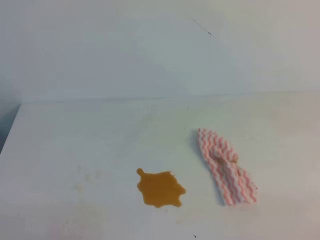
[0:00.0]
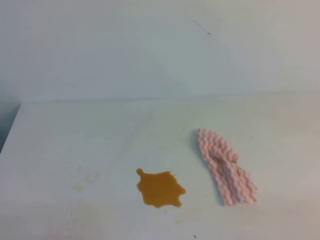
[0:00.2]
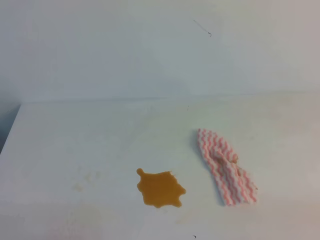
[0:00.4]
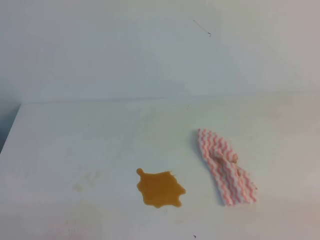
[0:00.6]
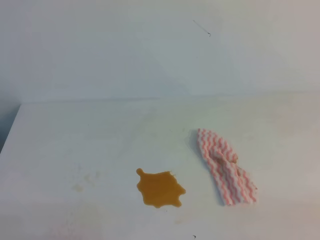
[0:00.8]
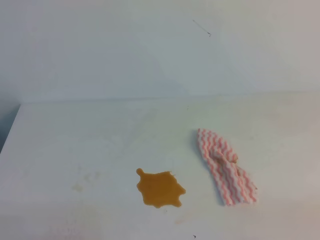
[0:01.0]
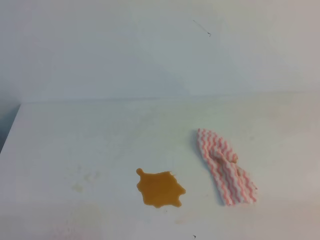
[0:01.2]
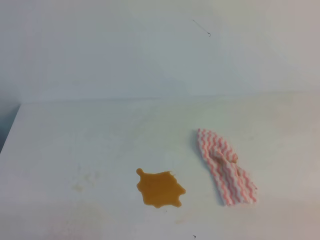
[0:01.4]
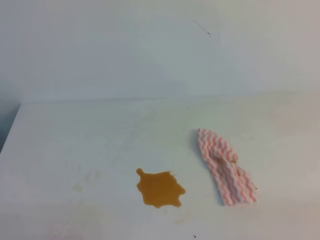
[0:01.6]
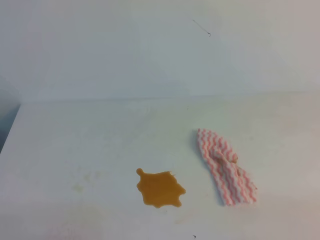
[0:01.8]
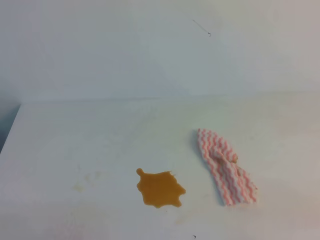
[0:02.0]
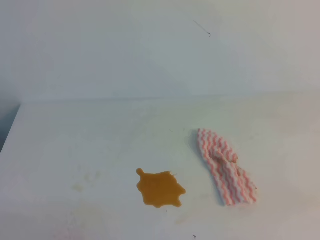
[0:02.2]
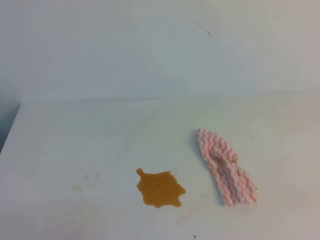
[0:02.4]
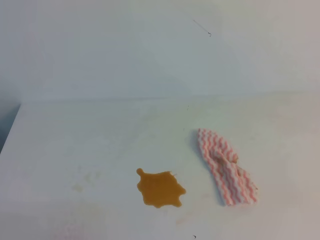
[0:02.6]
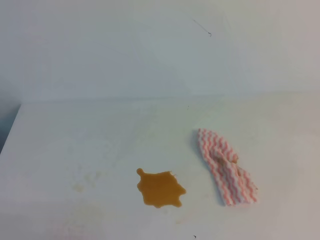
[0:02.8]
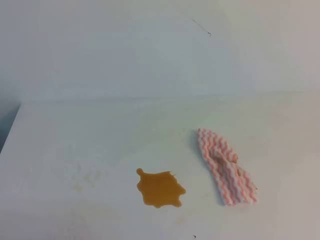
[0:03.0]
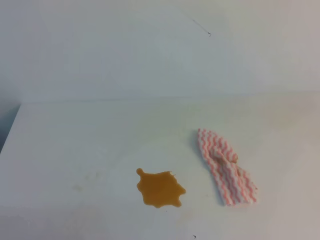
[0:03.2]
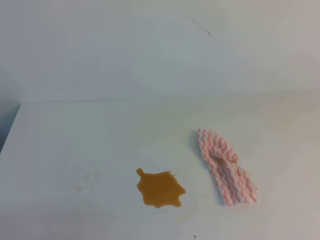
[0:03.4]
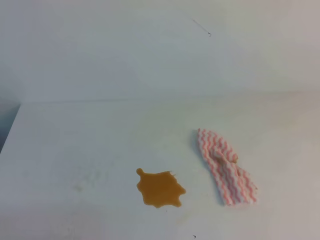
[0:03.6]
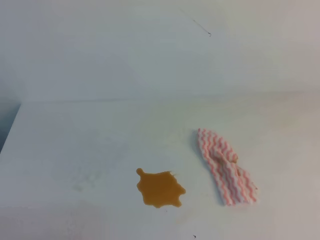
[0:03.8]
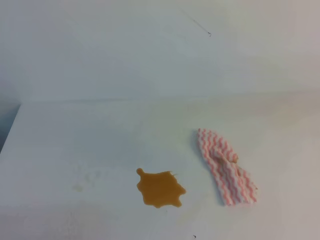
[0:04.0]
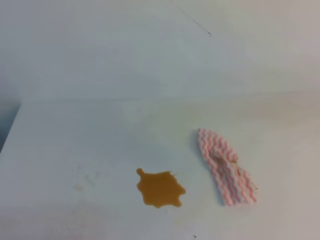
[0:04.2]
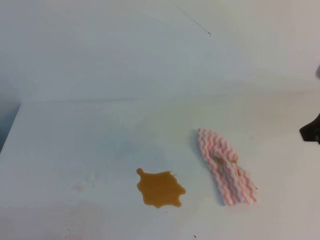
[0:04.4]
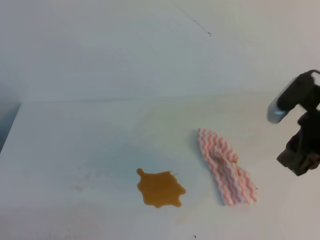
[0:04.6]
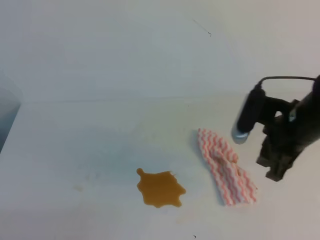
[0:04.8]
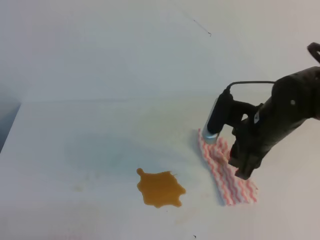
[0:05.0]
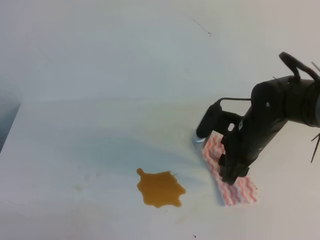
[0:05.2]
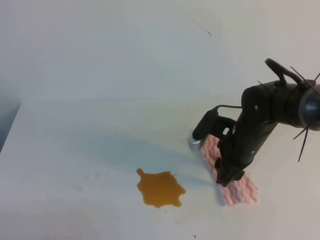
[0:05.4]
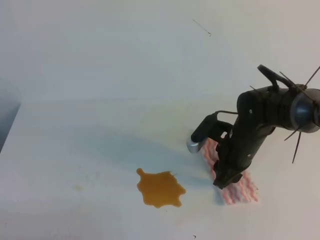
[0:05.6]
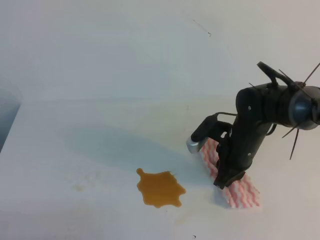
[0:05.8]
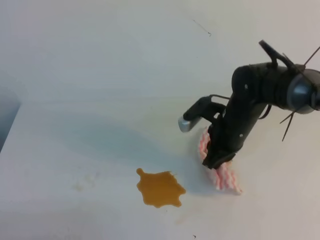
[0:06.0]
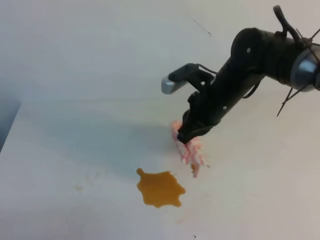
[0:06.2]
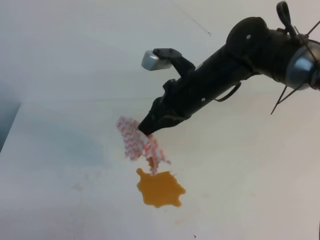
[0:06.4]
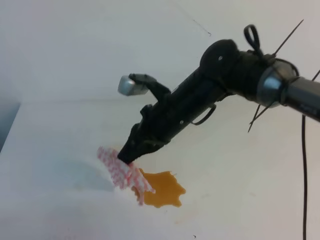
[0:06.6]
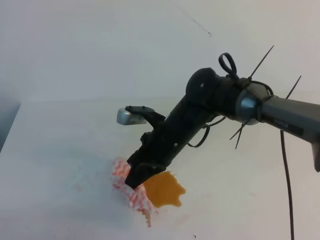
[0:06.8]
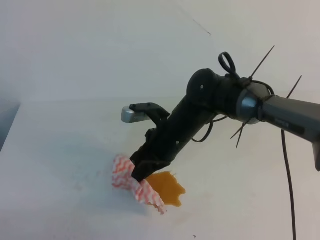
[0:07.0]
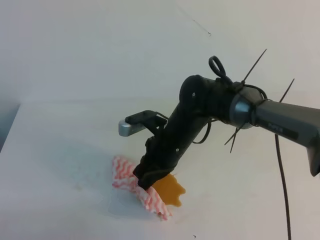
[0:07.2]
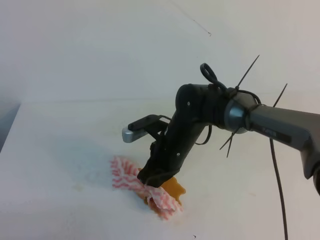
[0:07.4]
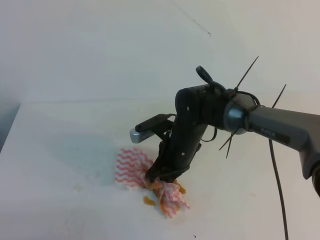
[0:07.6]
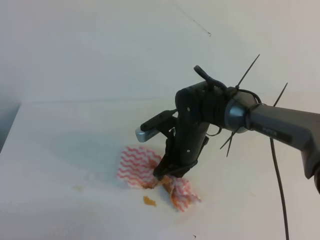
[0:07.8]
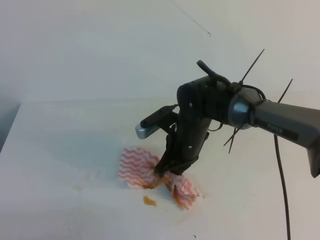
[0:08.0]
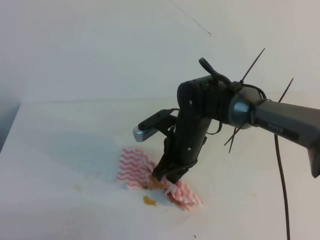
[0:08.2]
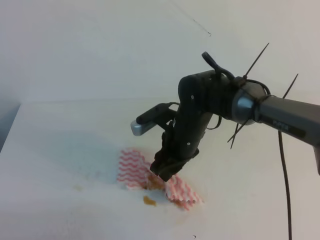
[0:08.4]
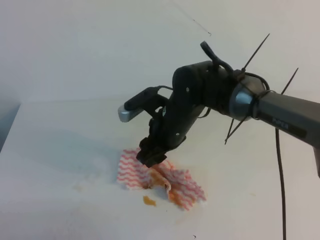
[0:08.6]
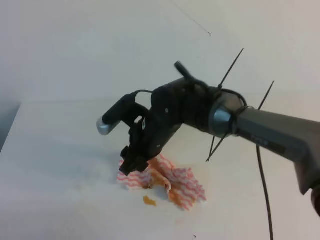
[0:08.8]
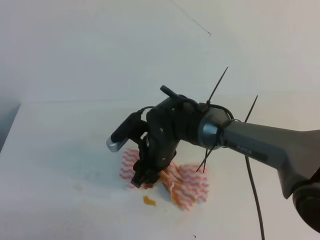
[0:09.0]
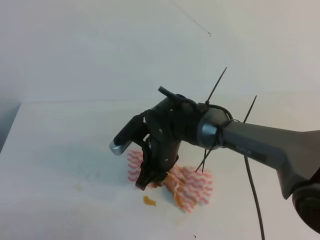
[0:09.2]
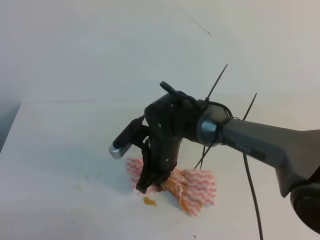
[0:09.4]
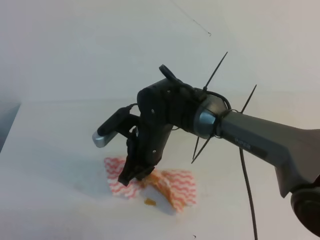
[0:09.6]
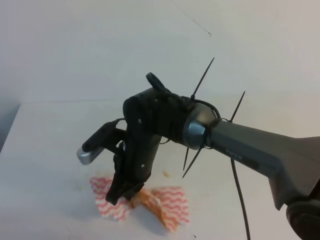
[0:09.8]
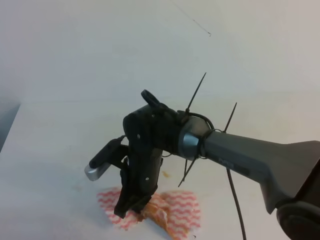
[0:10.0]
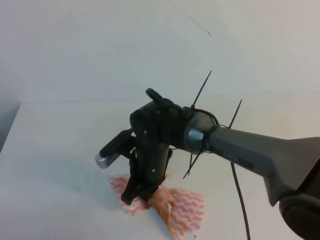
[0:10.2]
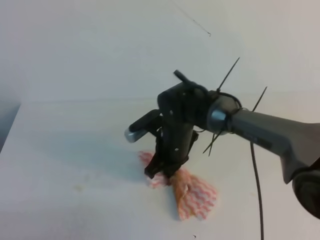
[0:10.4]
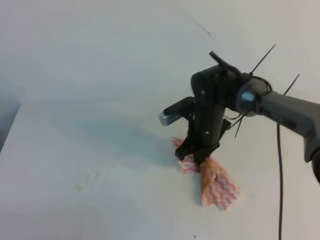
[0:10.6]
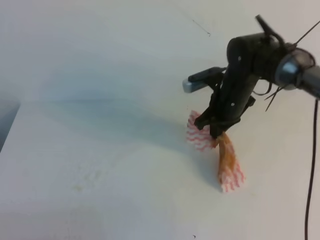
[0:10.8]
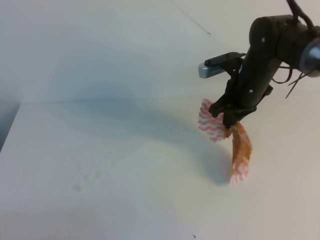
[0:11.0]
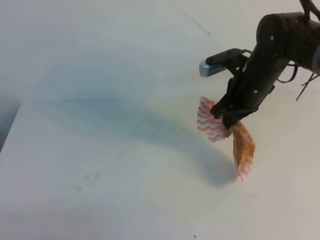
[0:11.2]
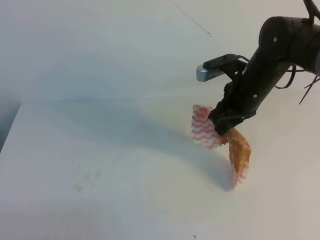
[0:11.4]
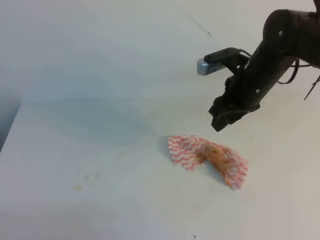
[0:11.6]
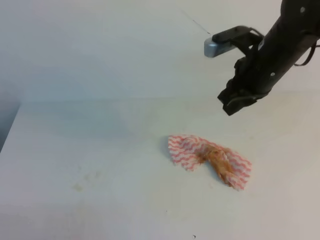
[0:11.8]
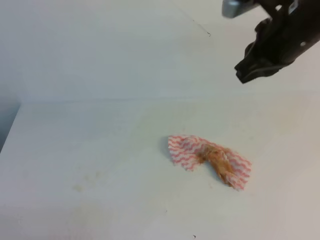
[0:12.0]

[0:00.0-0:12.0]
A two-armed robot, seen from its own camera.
0:04.4 to 0:06.0: The right gripper moves to the left, downward and forward, some 25 cm, and closes up.
0:06.0 to 0:07.6: The right gripper travels to the left by some 10 cm.
0:07.6 to 0:09.0: The right gripper opens its fingers.
0:09.0 to 0:10.4: The right gripper closes.
0:10.4 to 0:12.0: The right gripper goes roughly 25 cm upward and to the right, and opens and closes again.

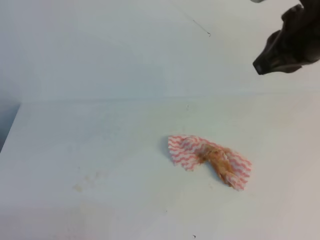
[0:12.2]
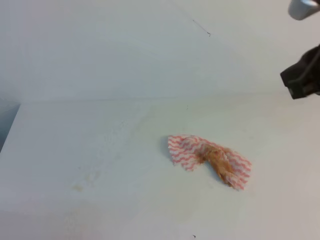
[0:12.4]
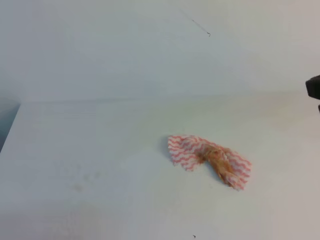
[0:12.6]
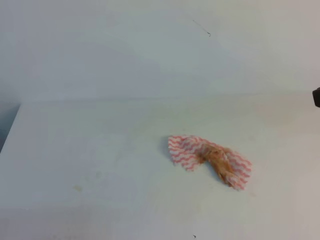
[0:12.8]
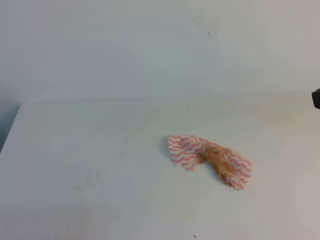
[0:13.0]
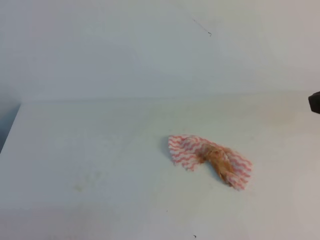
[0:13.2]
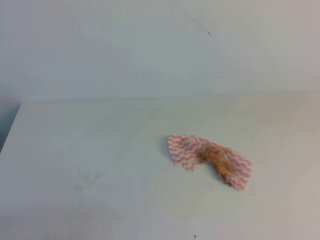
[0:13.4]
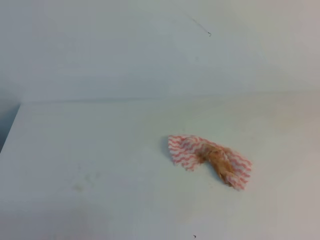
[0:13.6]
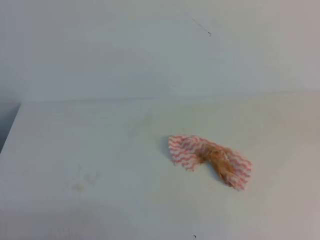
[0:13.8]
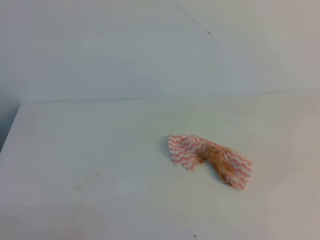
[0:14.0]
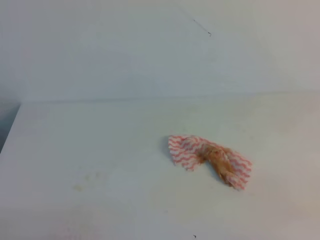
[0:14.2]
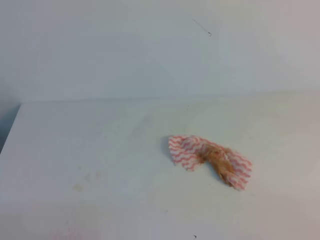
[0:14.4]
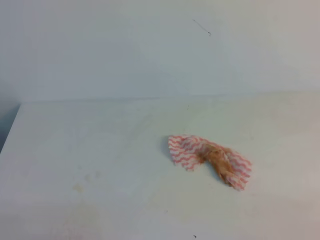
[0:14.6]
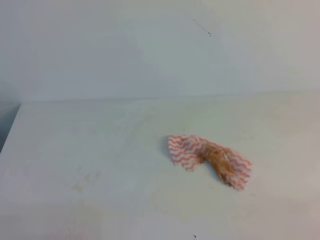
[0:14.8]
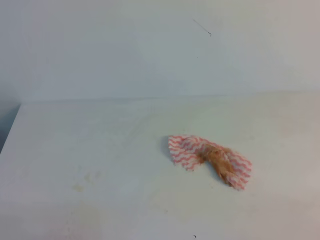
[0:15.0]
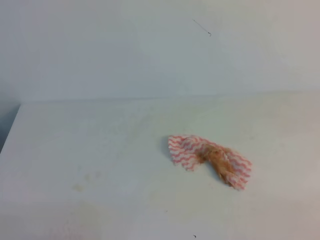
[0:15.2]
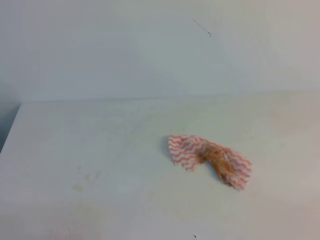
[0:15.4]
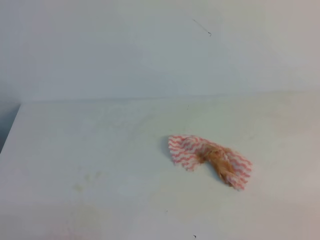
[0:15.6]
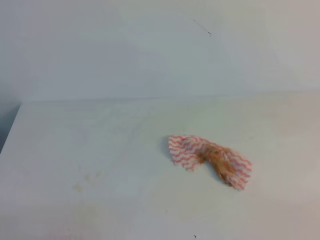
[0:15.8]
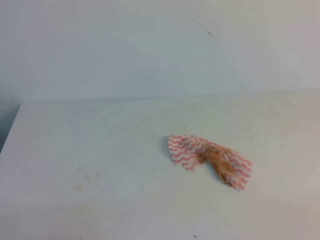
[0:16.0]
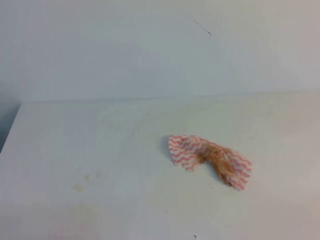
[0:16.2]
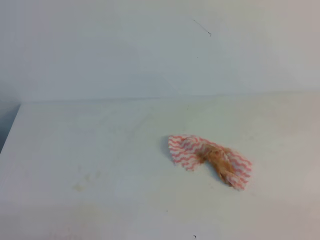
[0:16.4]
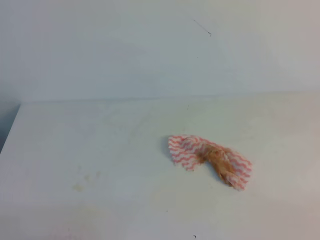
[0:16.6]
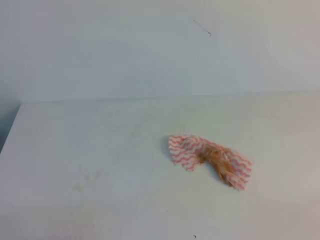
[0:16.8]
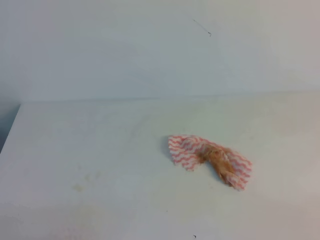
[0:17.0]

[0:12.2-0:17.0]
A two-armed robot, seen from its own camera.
0:12.2 to 0:13.8: The right gripper shifts about 25 cm backward and to the right.
0:15.4 to 0:17.0: The two grippers keep their place.
